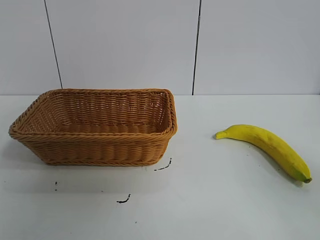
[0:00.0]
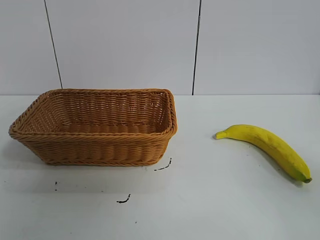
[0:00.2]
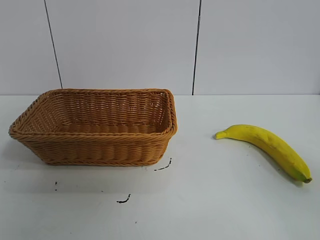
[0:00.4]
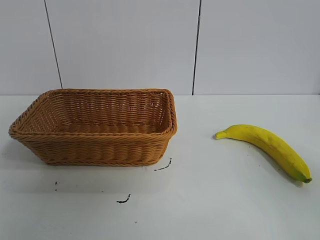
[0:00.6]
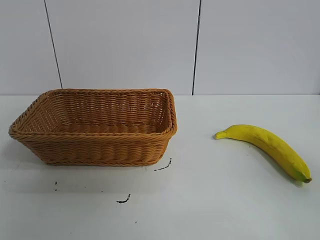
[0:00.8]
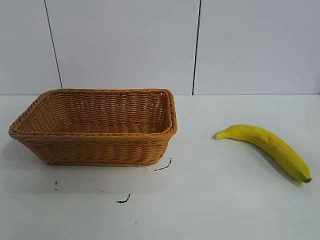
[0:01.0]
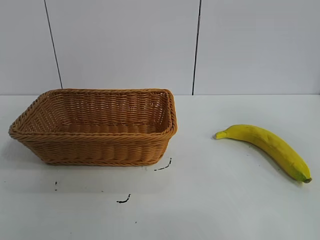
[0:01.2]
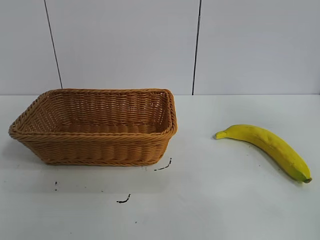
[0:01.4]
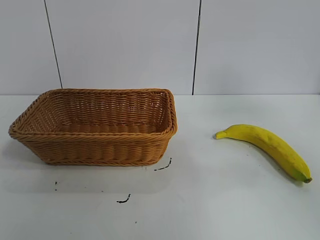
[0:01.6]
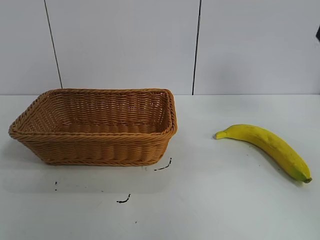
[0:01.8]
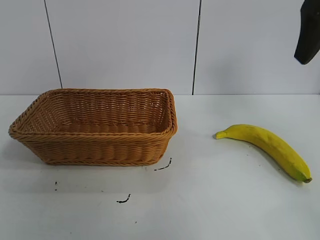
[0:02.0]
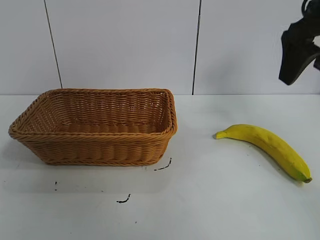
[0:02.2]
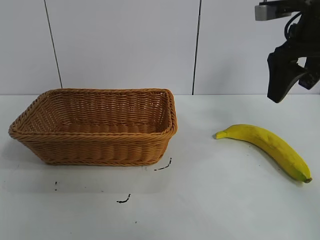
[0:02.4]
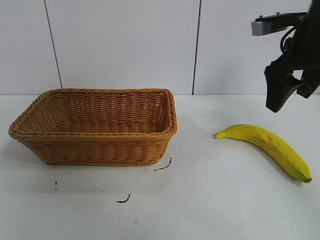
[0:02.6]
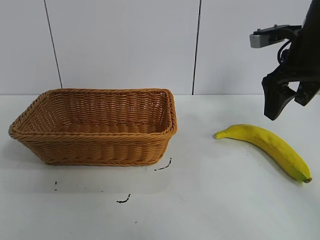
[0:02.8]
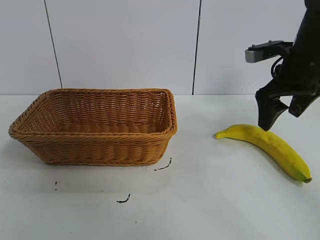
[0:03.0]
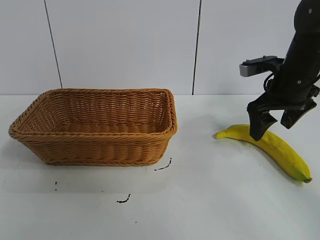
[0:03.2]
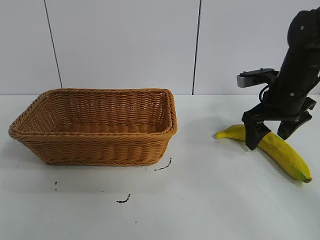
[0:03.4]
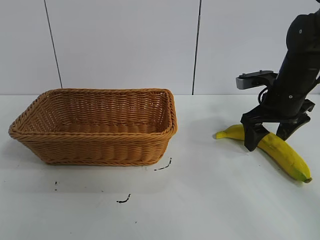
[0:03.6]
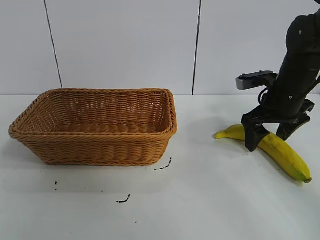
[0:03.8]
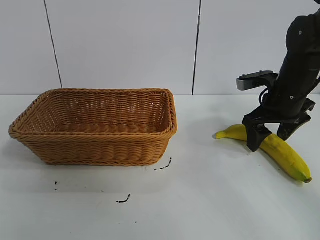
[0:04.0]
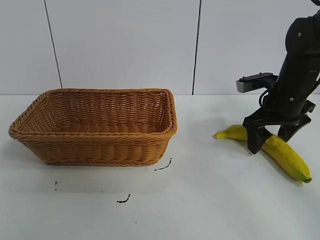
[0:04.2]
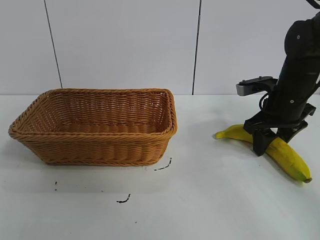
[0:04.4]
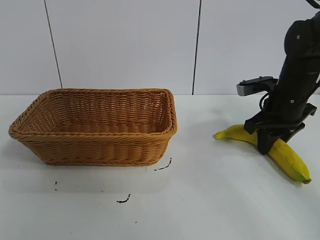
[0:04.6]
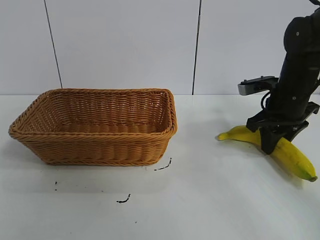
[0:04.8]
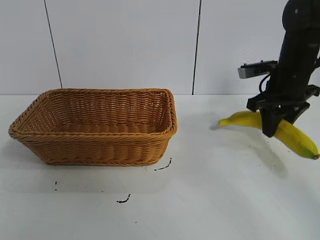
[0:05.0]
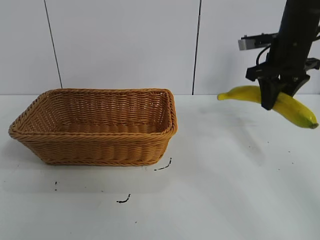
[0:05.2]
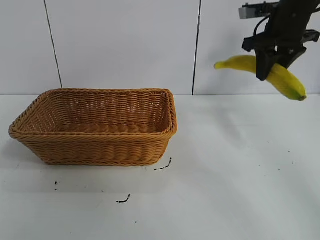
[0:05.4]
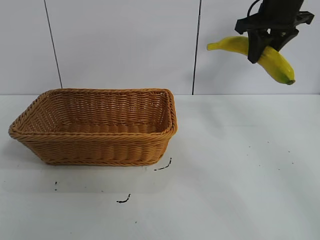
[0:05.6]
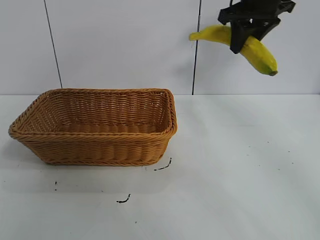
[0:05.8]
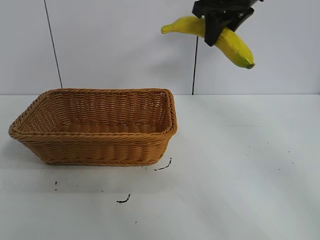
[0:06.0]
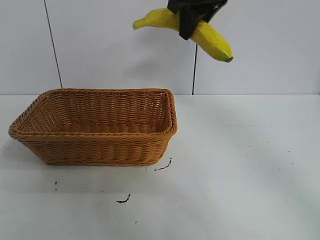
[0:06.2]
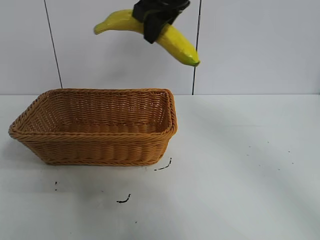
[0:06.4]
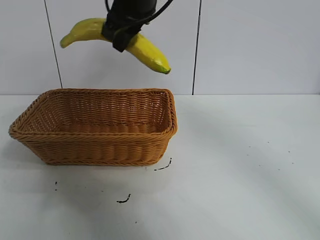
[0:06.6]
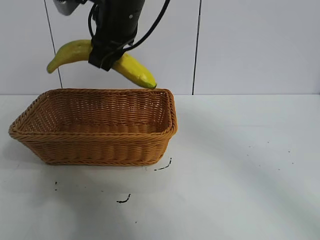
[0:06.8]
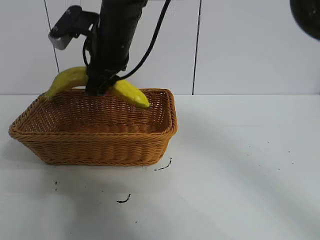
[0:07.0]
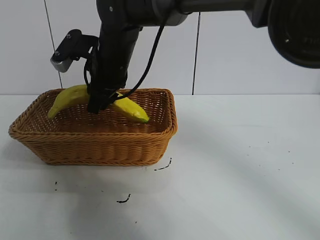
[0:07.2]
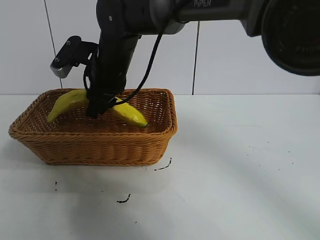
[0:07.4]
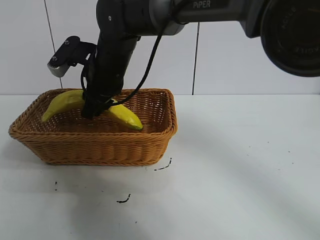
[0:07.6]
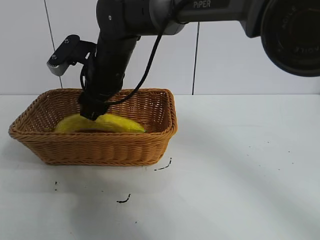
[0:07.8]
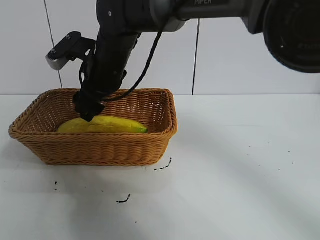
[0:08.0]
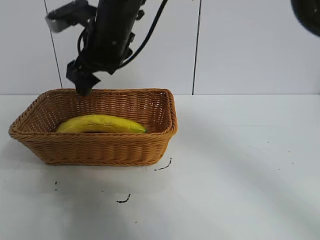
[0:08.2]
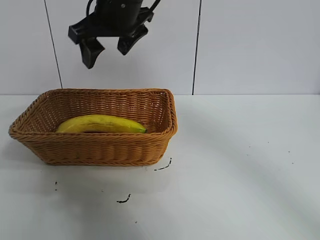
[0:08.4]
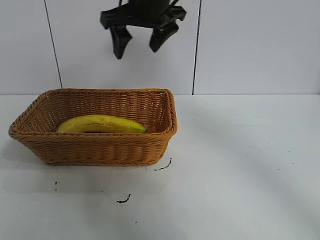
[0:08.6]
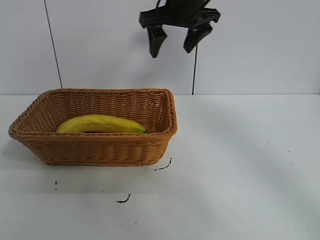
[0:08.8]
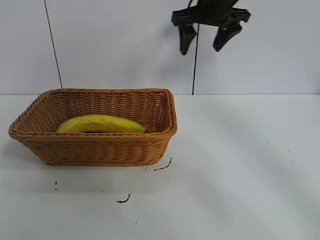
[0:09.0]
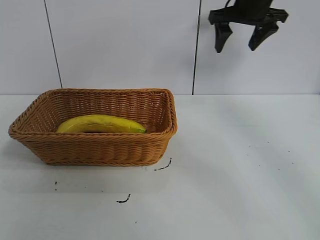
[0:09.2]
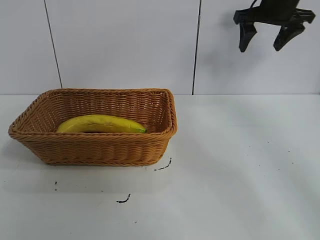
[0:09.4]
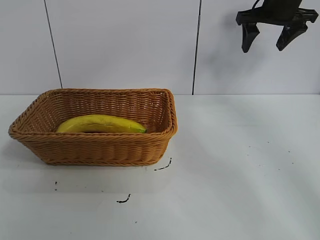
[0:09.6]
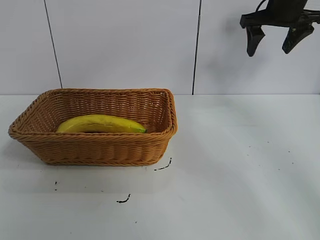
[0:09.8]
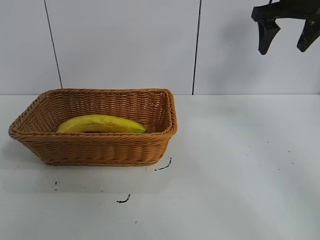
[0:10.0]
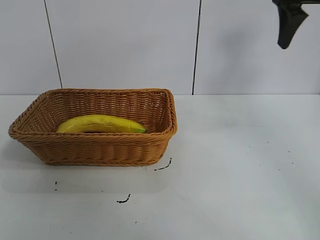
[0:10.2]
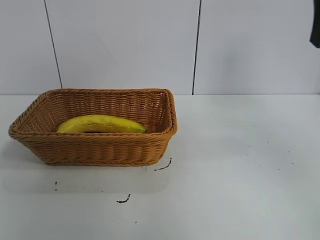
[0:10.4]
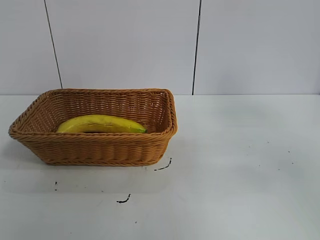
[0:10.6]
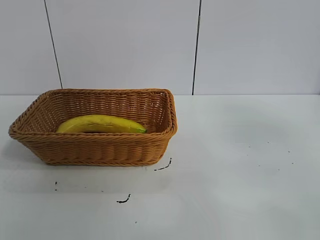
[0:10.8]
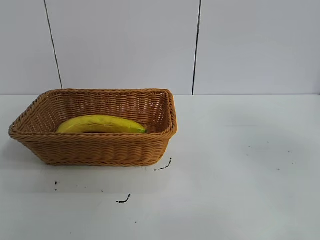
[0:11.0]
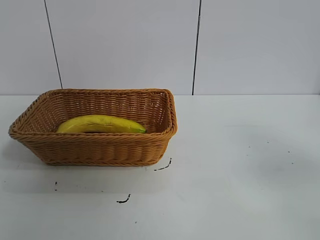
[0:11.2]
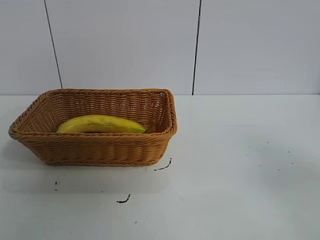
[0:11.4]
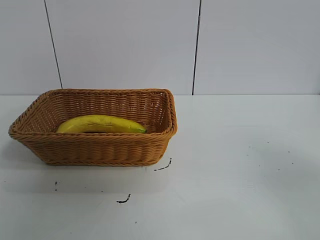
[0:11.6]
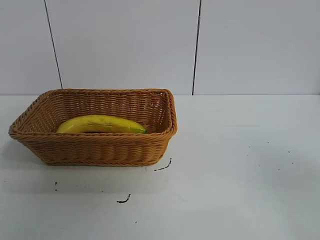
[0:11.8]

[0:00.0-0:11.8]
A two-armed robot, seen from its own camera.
Task of the whole recording: pick up the banana and put it into the basket.
Step, 0:00.8 to 0:04.4: Grasp the banana with right gripper.
Step, 0:04.6 to 0:08.0: Place the banana in the basket with right gripper.

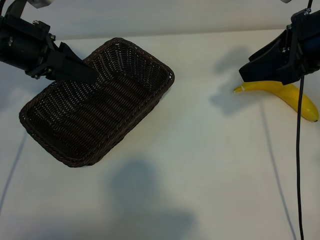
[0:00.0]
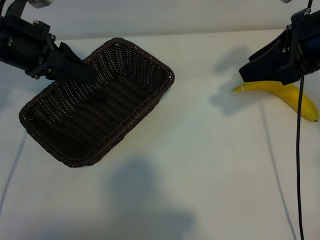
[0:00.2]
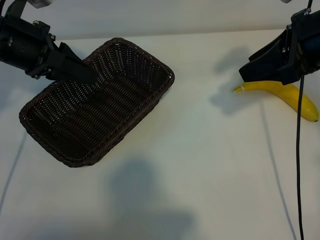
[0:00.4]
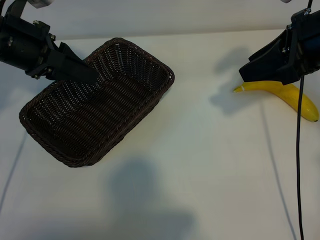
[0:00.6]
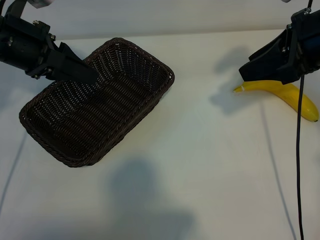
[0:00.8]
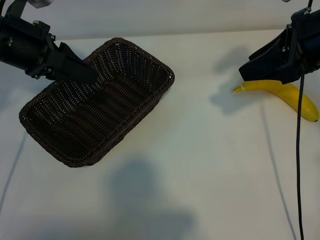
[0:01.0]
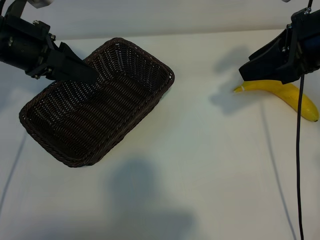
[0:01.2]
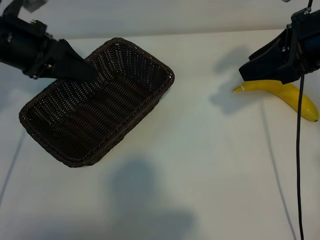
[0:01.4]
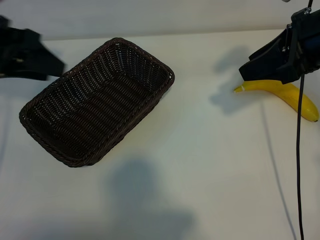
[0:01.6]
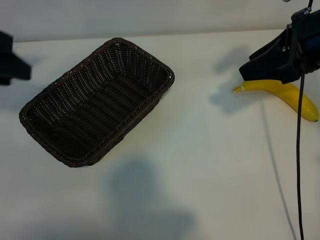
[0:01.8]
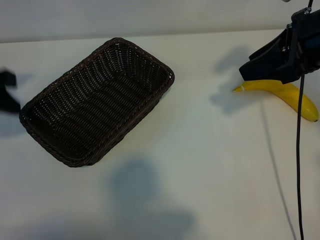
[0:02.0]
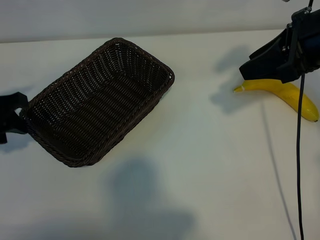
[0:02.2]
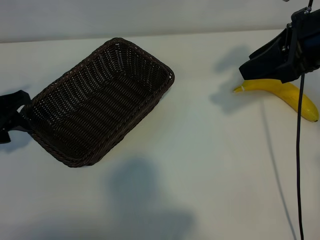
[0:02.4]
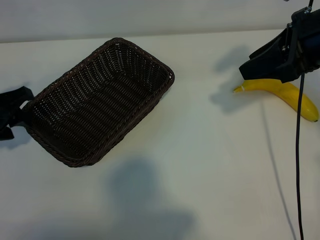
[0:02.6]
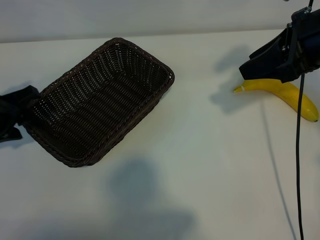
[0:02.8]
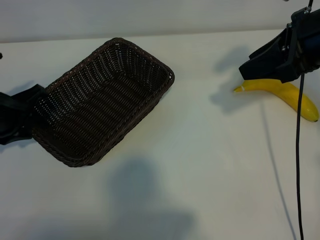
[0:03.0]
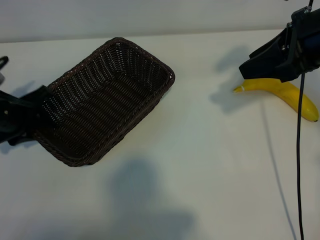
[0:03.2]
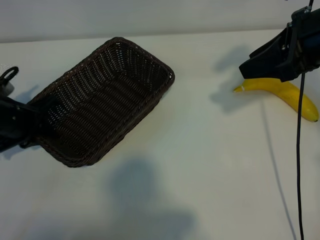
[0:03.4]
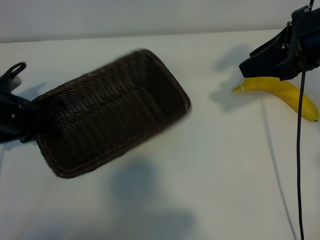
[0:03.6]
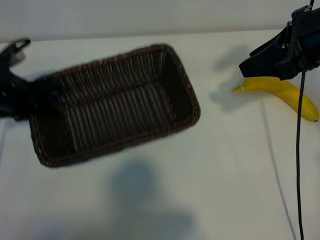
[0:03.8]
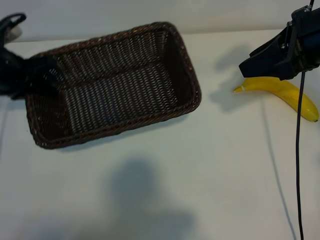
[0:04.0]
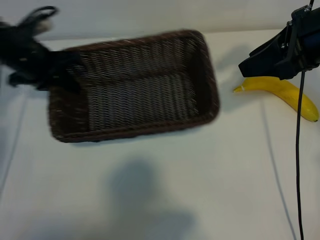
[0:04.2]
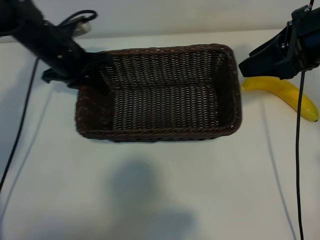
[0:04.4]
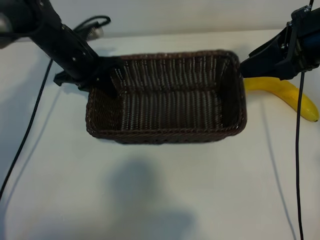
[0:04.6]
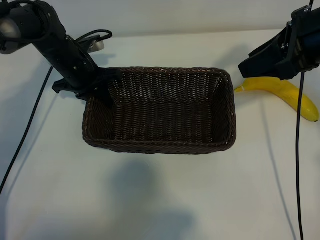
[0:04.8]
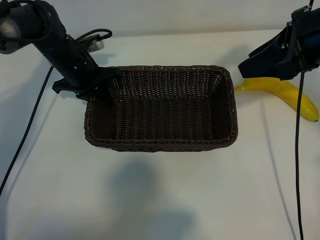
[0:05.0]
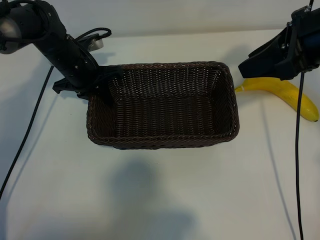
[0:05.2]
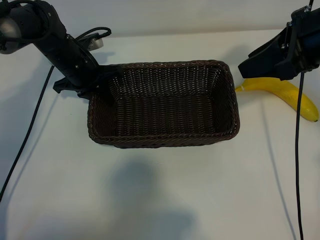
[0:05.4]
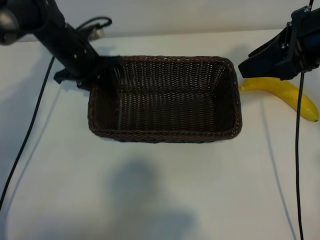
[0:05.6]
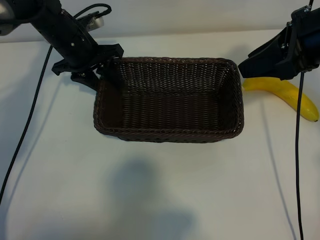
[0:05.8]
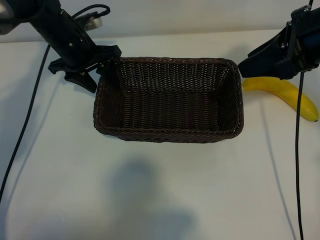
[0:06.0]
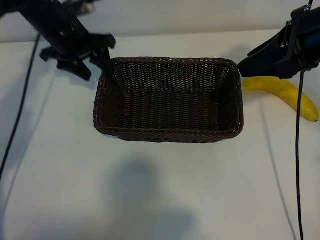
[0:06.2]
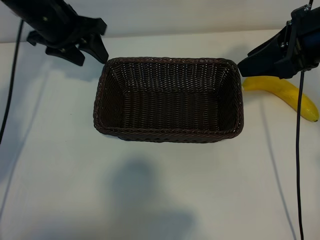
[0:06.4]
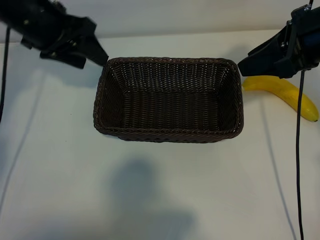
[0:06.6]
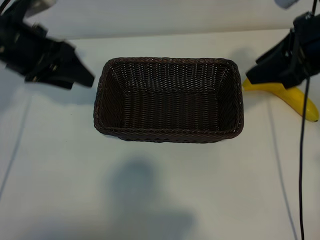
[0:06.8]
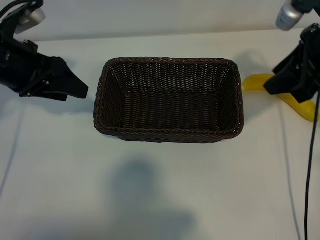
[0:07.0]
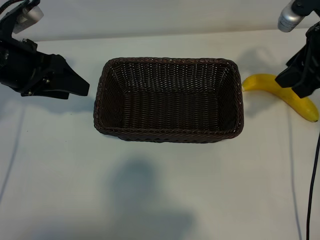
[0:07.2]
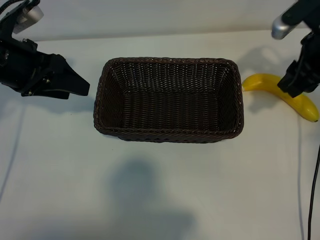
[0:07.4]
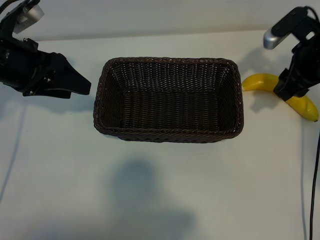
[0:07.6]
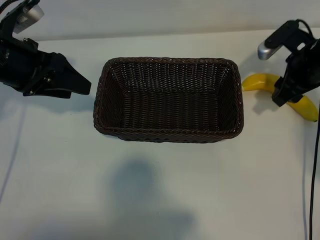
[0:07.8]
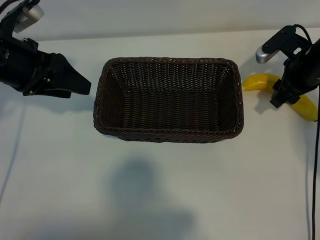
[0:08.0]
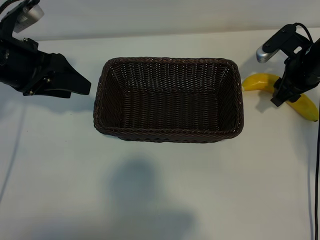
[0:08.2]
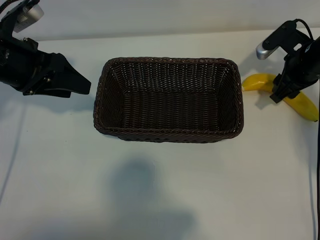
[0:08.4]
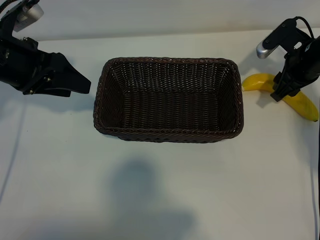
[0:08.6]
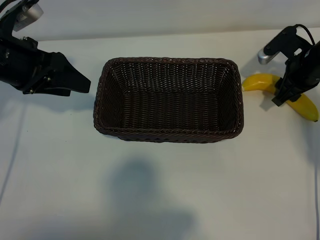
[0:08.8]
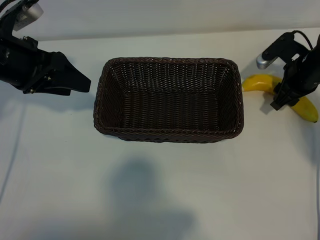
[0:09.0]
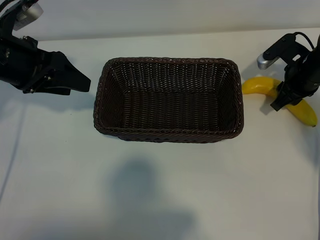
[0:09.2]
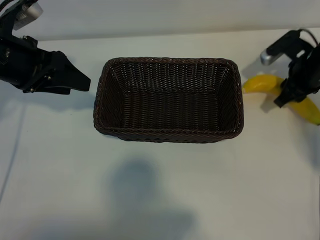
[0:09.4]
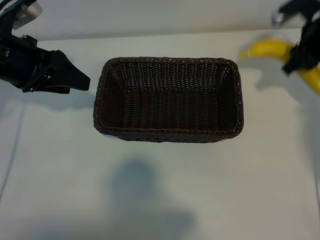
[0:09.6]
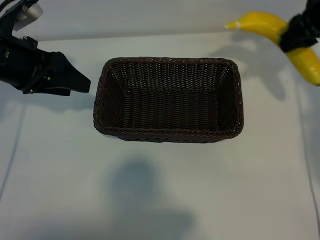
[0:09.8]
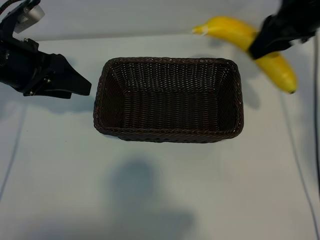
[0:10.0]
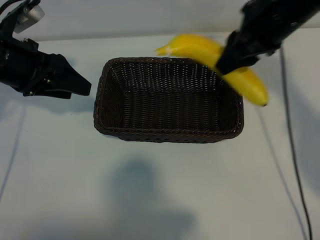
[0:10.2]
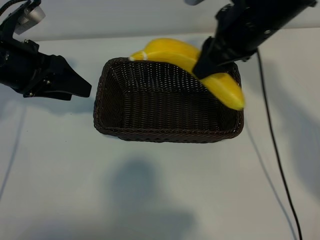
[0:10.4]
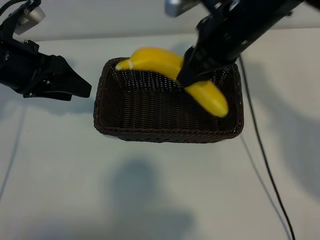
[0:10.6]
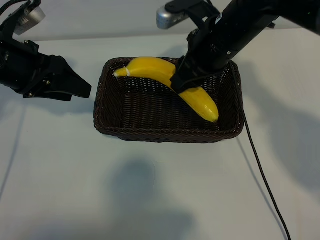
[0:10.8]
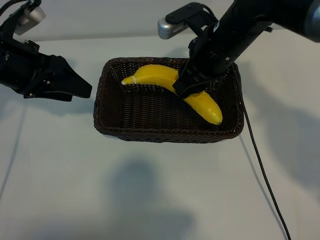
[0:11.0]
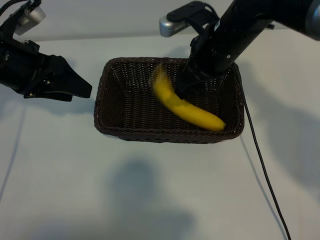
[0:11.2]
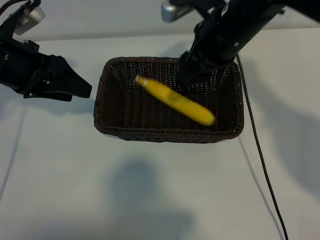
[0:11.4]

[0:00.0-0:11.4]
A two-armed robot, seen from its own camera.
Task of the whole recording: pick up the banana and put it into the basket.
Step, 0:01.4 to 0:03.2: Grasp the basket with the left gripper.
Step, 0:03.6 to 0:06.2: Place the basket in the center of the table with the left gripper.
Step, 0:06.4 to 0:09.0: Grasp the banana with right gripper.
